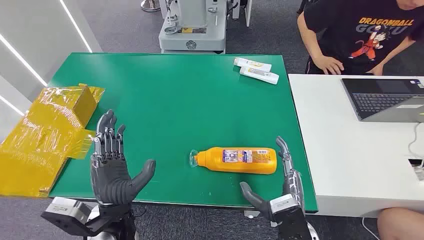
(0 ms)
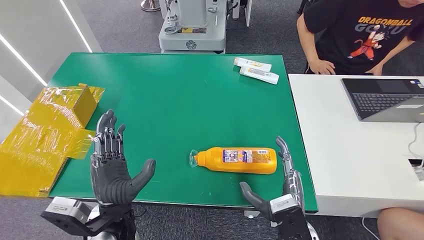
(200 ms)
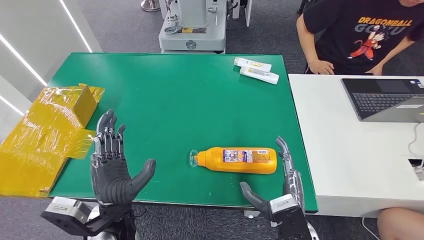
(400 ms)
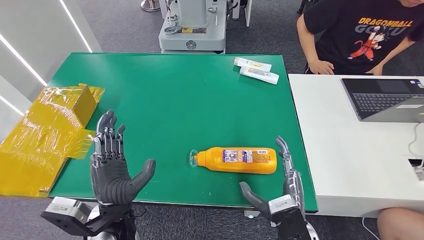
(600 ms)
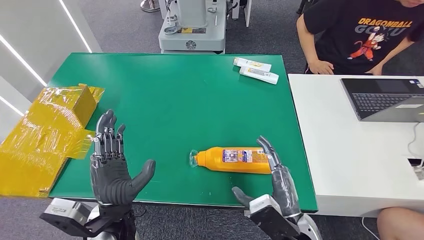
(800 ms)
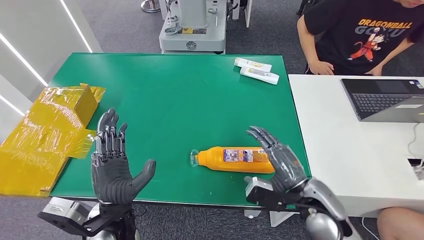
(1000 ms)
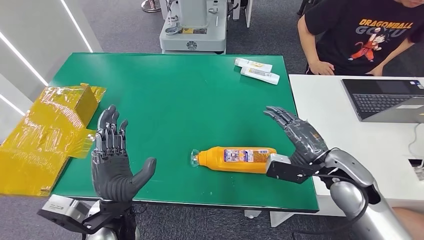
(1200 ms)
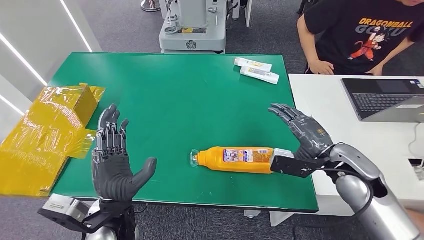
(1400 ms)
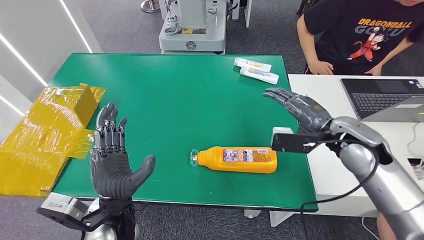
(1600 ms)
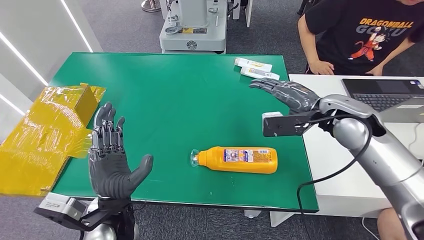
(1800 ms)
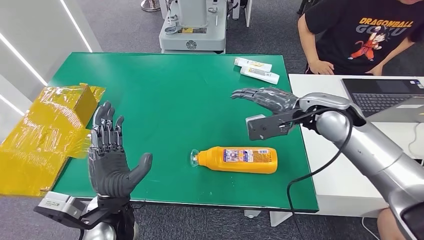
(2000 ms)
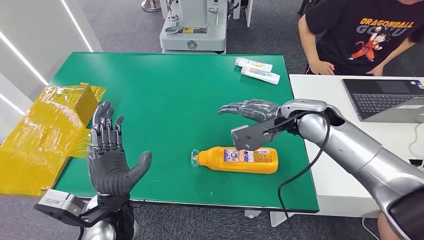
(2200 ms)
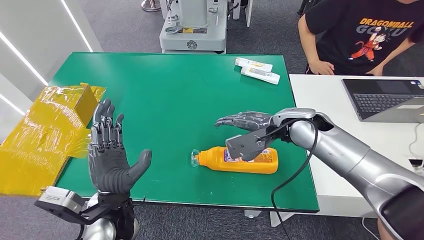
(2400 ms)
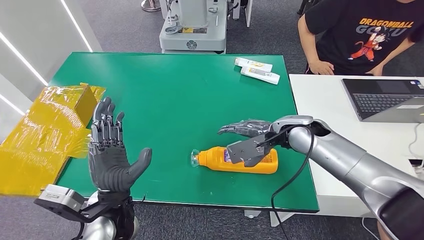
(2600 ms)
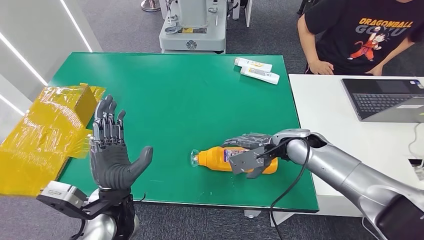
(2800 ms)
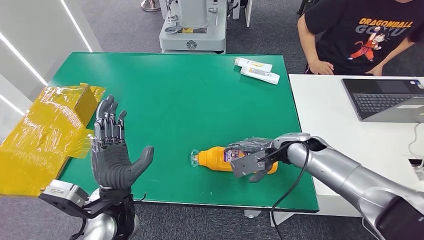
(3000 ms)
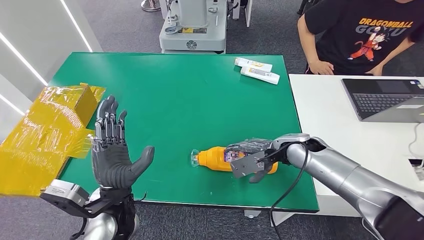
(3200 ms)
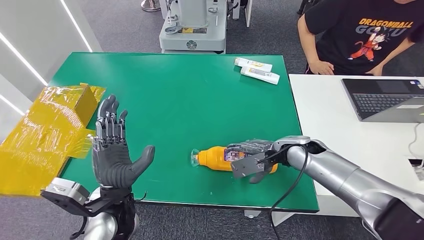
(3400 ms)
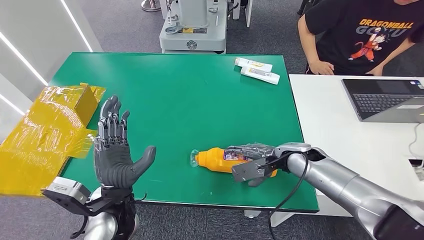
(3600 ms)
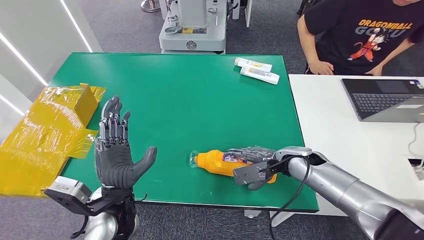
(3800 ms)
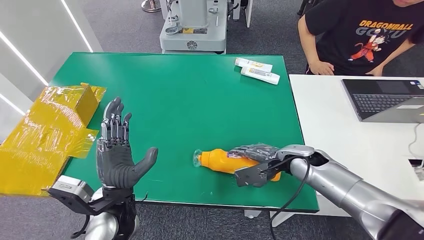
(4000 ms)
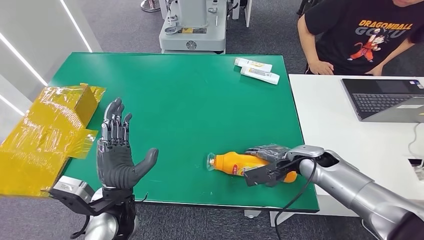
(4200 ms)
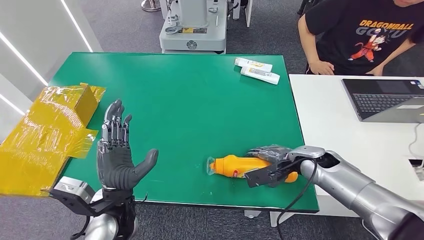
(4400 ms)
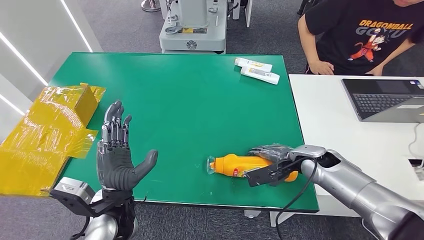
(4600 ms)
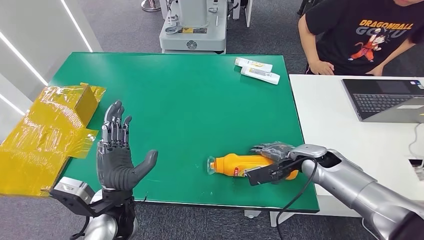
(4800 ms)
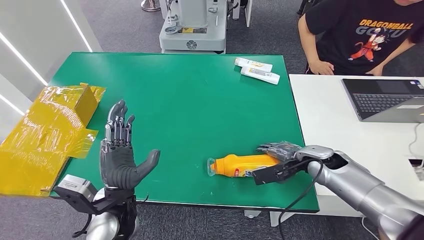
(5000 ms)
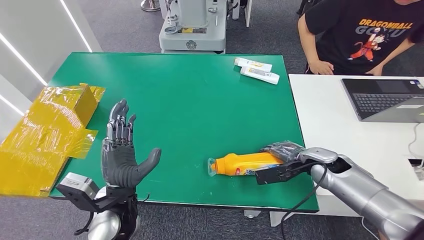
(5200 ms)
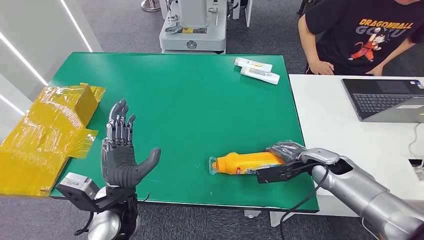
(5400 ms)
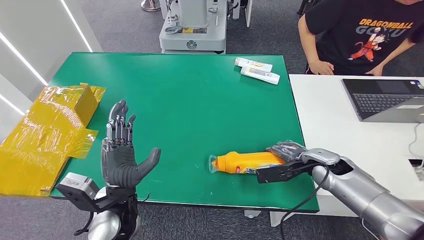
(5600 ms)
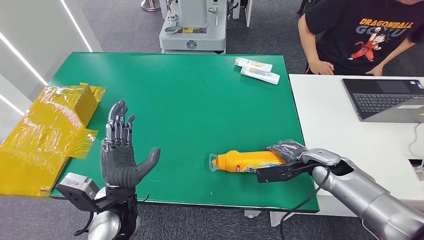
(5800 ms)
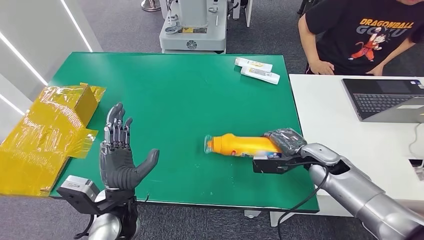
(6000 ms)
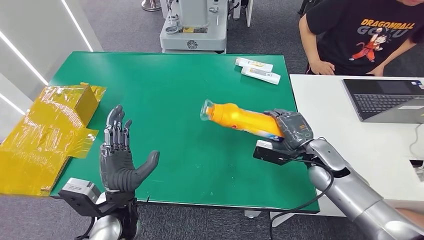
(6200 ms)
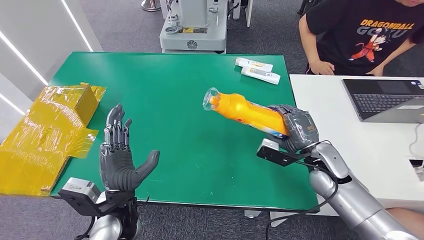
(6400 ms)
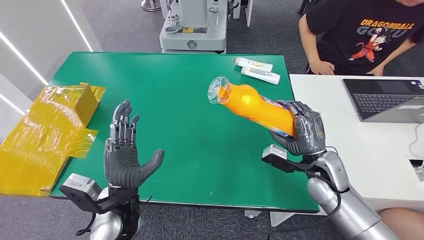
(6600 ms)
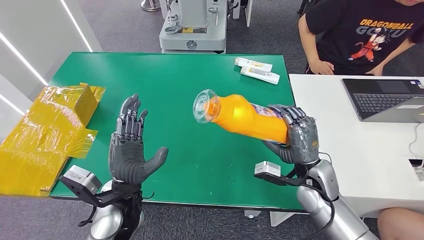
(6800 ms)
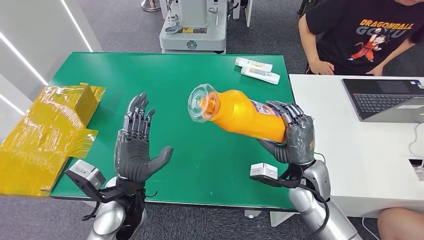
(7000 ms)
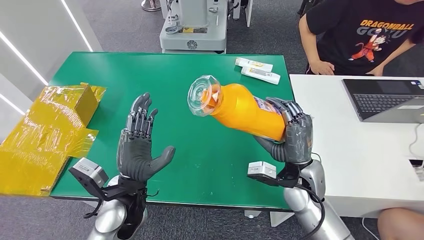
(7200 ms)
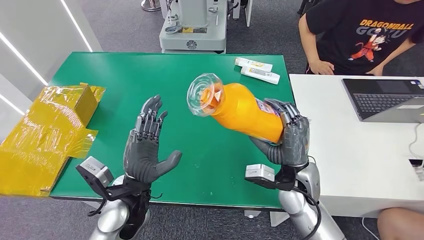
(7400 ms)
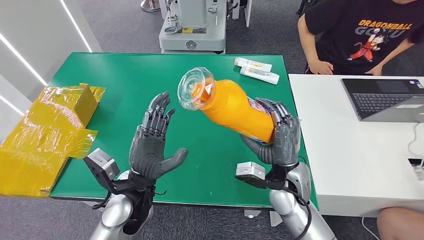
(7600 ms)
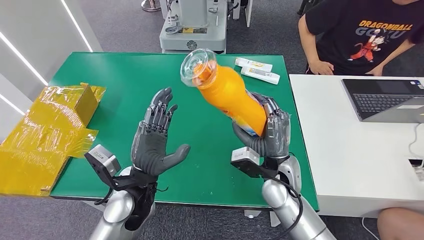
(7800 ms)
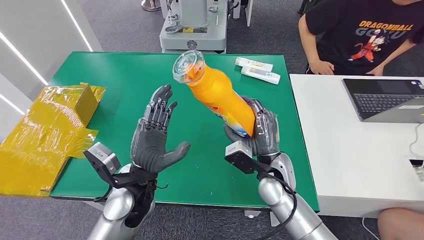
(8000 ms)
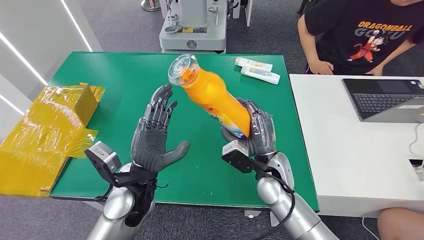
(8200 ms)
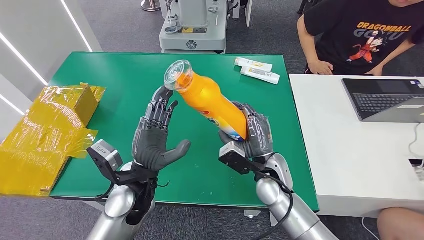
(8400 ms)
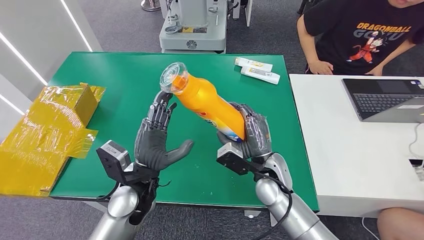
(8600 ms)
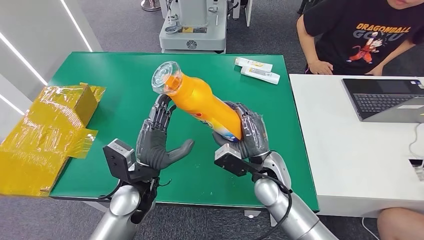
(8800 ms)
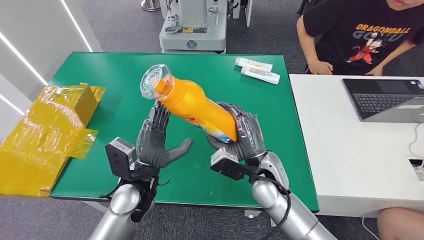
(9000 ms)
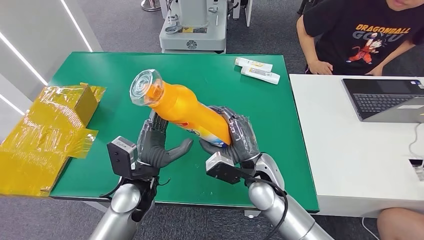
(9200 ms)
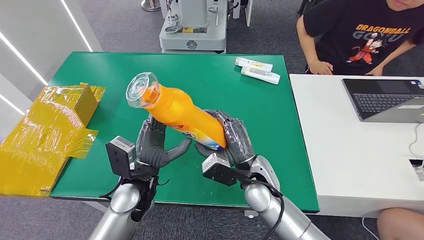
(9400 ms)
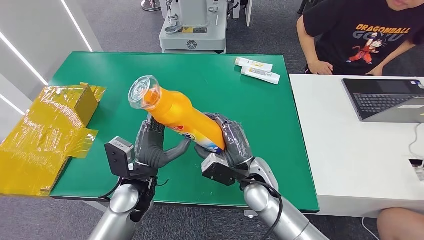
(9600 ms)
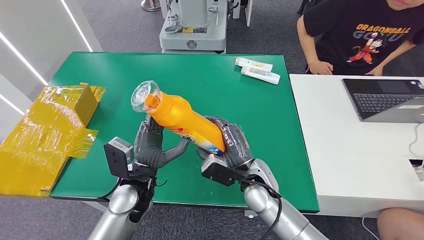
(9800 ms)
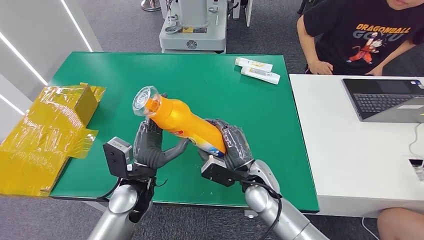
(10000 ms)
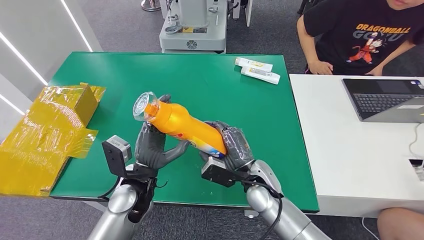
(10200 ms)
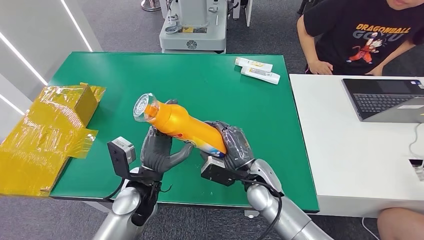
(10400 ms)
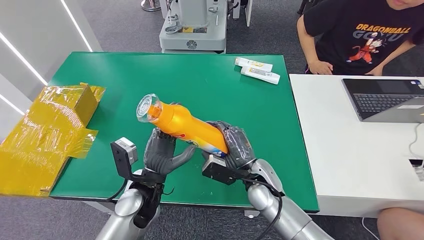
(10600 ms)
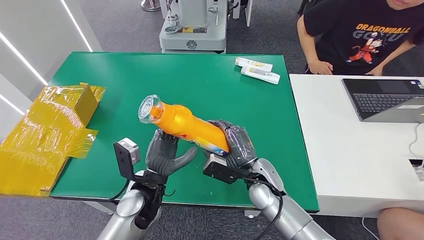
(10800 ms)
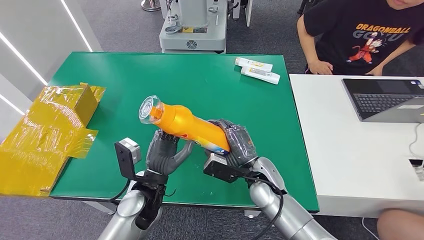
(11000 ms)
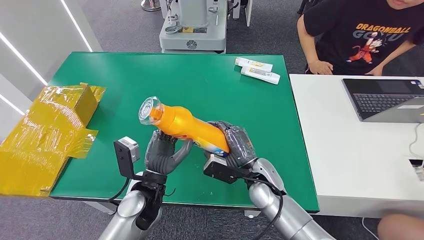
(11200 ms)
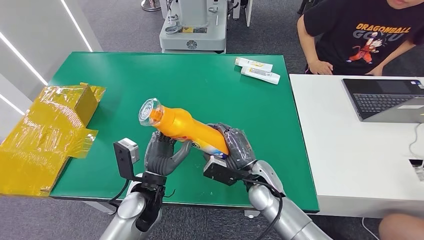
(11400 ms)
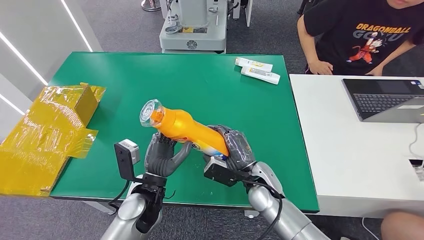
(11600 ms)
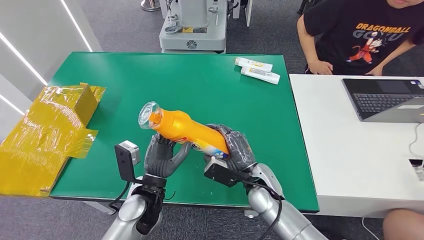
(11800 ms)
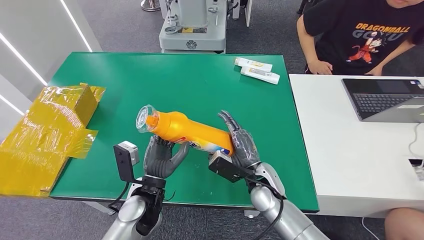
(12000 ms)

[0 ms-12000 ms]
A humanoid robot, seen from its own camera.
Step, 0 ms to 6800 ms: Pick up the bottle from the table.
1600 ms to 3000 ms: The right hand goes approximately 10 cm downward and to the left.
3000 ms to 4400 ms: The right hand shifts some 5 cm to the right.
7600 ms to 9000 ms: The right hand moves roughly 5 cm.
9000 ms to 12000 ms: The hands make only small movements.

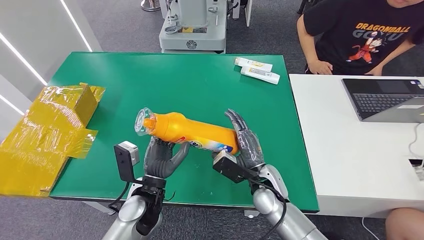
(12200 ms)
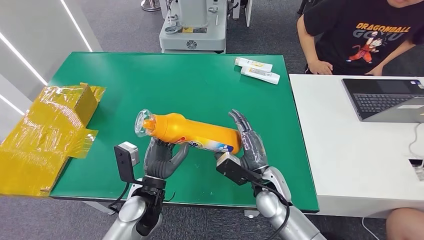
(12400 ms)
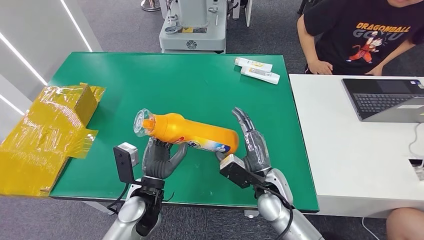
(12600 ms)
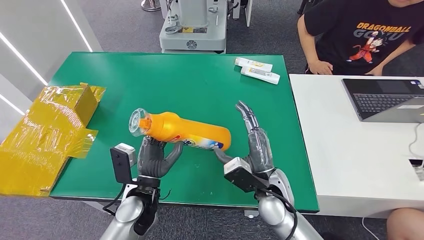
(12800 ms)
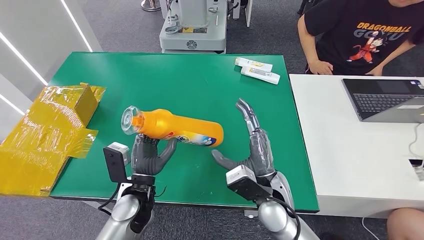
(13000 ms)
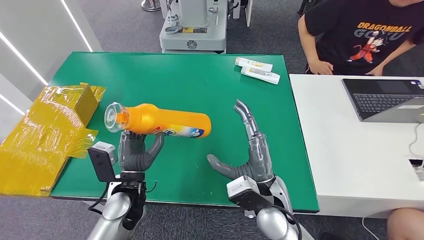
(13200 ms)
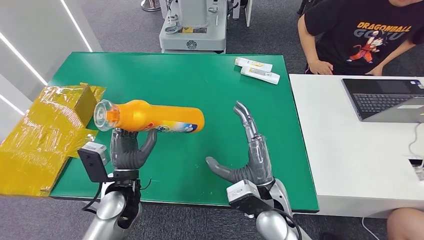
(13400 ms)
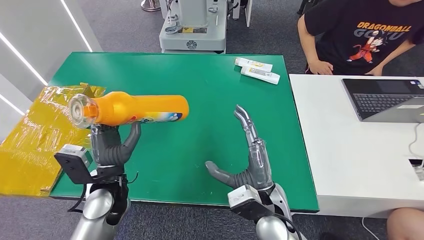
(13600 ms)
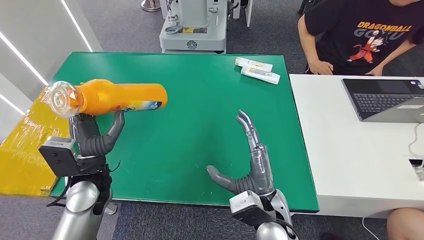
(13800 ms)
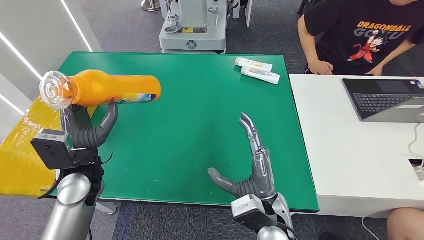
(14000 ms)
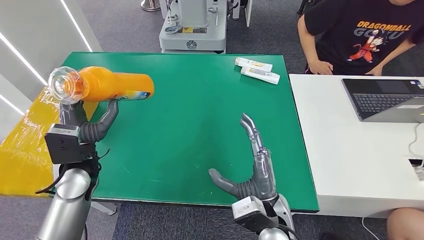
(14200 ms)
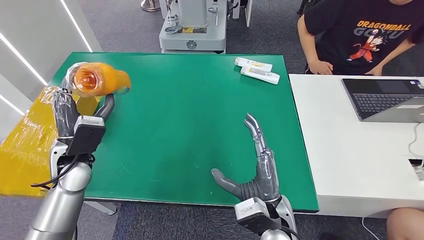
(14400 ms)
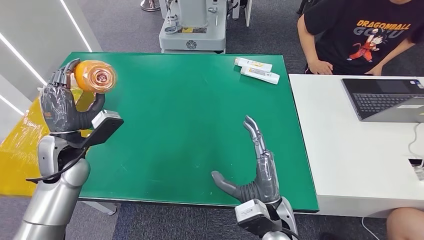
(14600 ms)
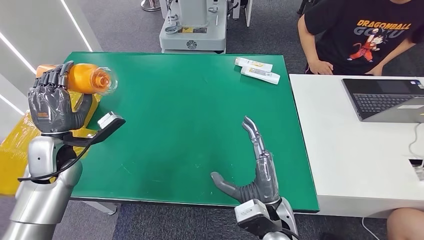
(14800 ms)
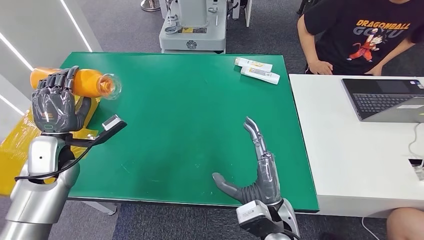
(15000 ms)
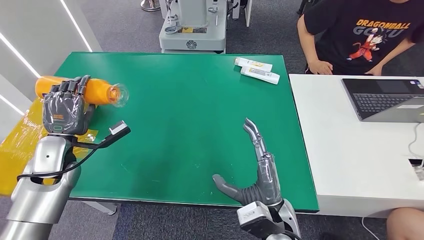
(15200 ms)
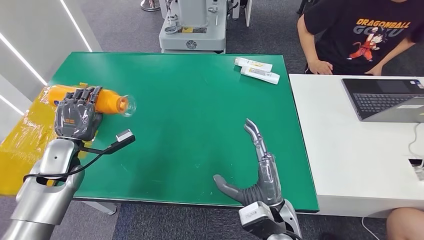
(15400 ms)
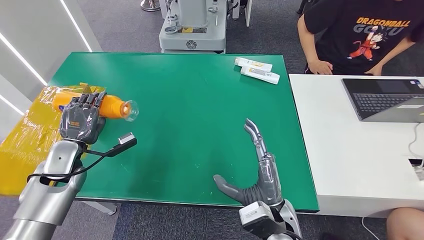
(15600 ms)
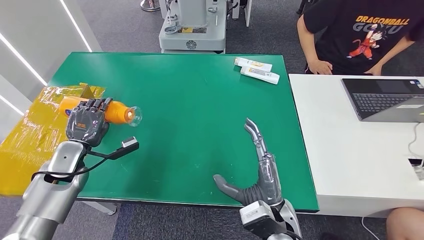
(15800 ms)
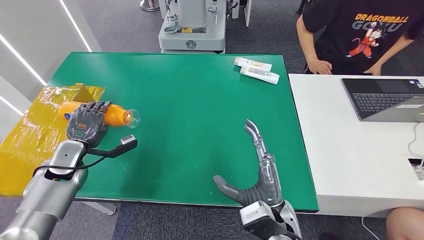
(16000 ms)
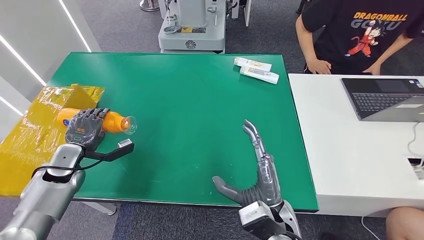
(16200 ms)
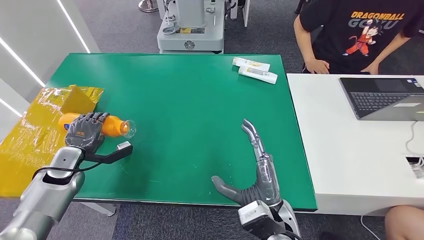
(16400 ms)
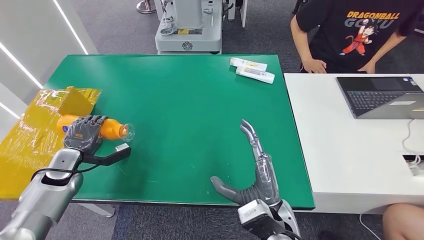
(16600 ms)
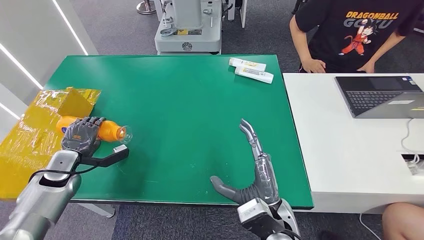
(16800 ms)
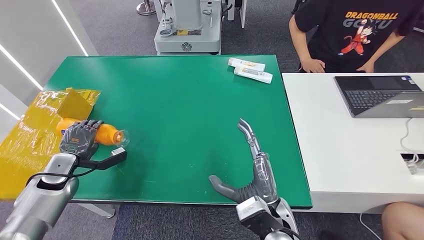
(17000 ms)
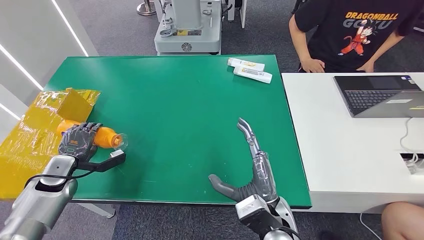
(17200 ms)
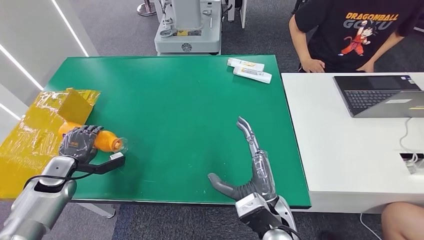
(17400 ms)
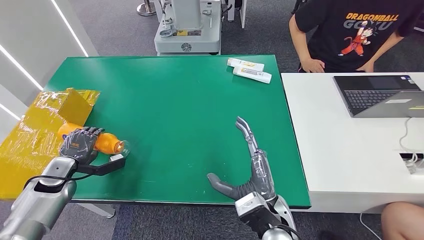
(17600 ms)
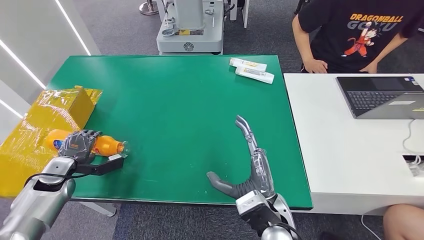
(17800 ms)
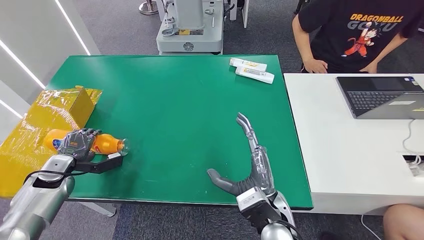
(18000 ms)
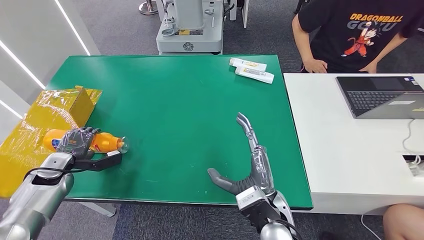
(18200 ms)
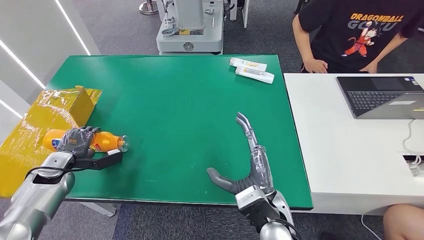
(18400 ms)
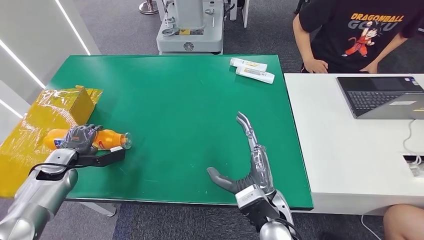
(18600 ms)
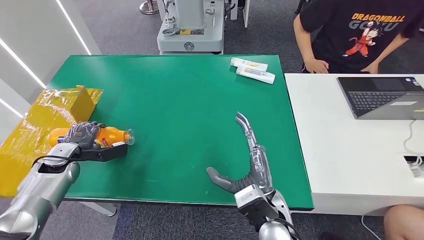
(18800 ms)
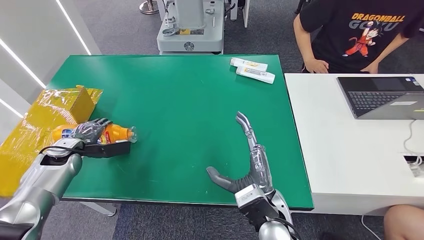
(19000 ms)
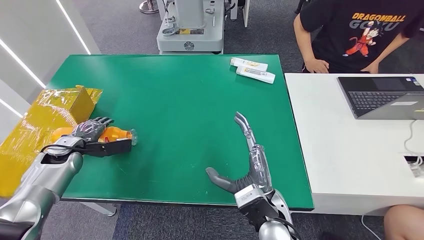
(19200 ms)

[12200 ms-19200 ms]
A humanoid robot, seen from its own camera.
12200 ms to 13600 ms: The right hand is displaced backward and upward by about 10 cm, while the left hand goes approximately 5 cm to the left.
16400 ms to 17800 ms: The left hand changes place by about 5 cm.
17800 ms to 19200 ms: The left hand moves forward, approximately 5 cm.
